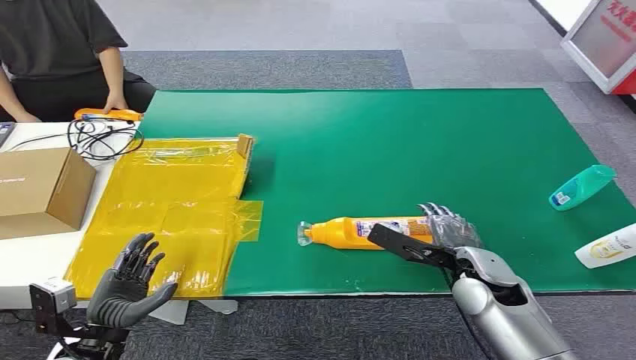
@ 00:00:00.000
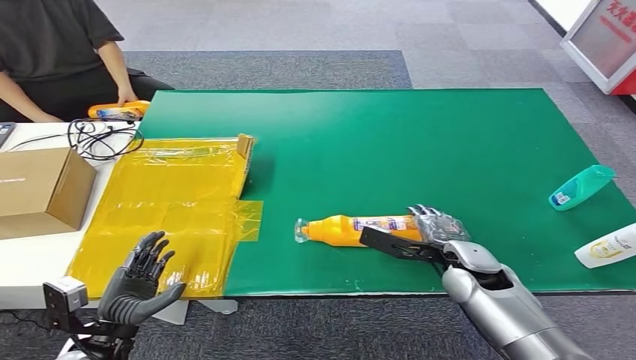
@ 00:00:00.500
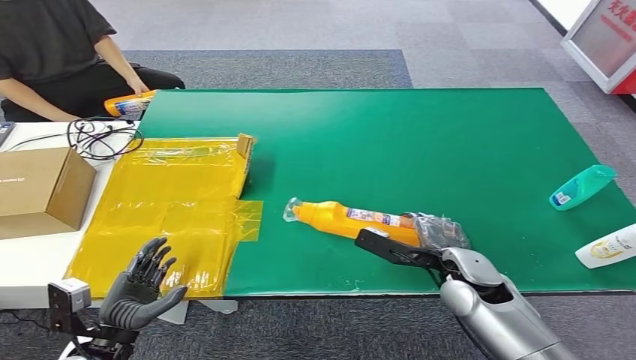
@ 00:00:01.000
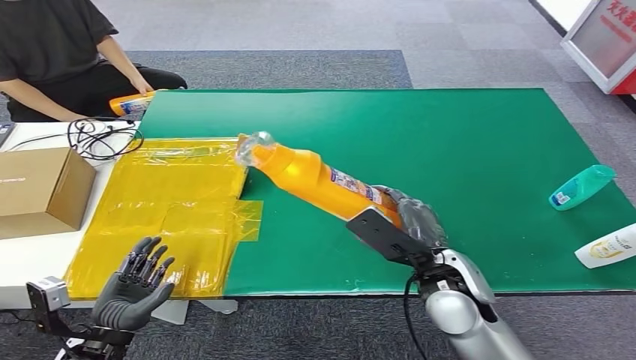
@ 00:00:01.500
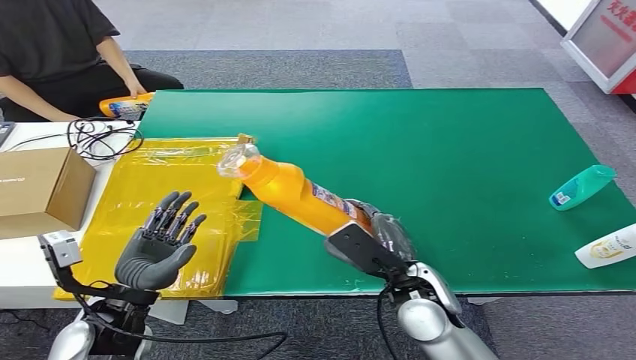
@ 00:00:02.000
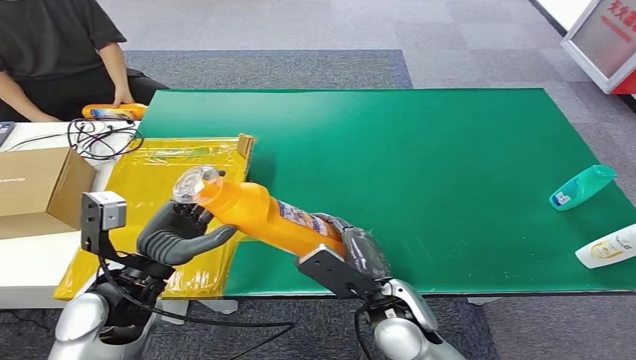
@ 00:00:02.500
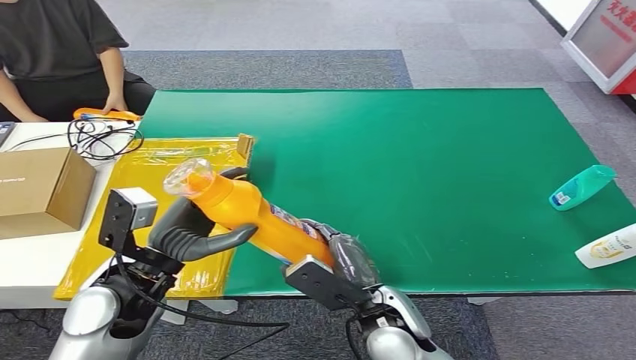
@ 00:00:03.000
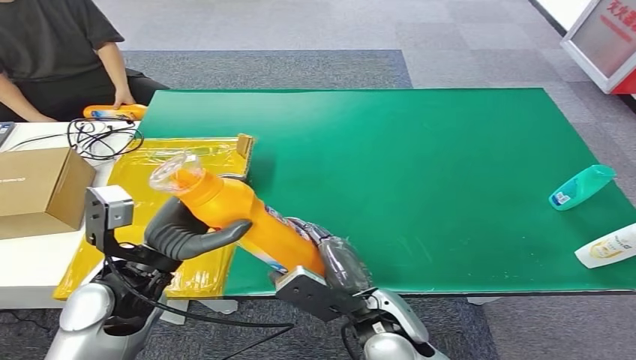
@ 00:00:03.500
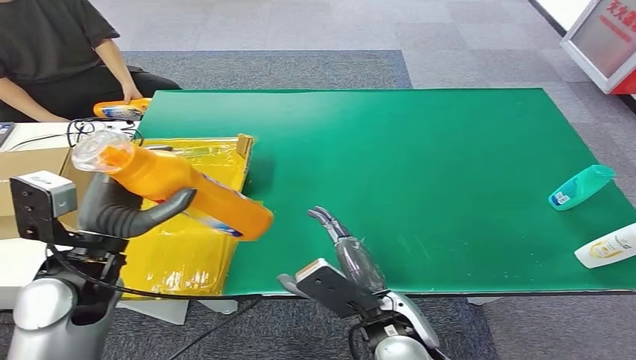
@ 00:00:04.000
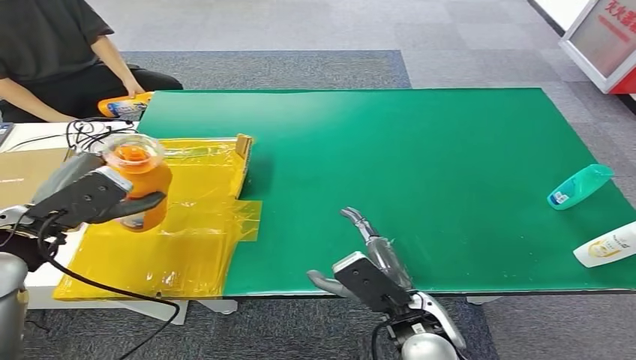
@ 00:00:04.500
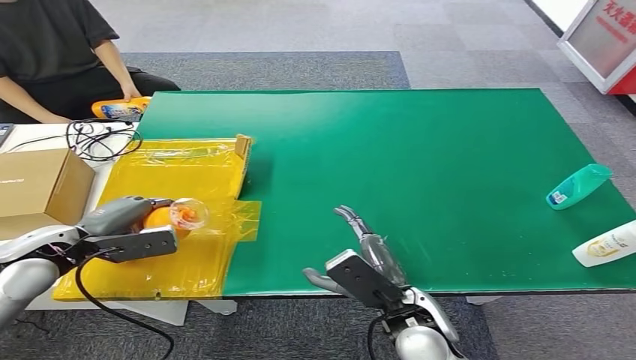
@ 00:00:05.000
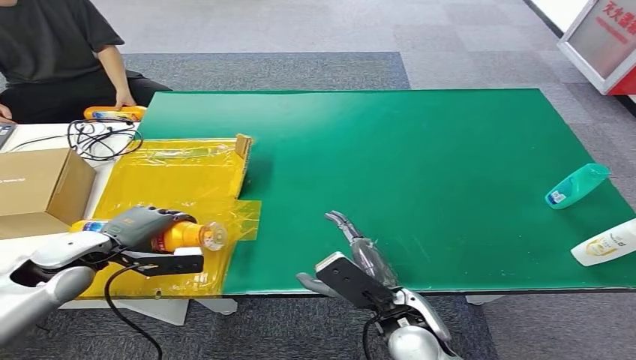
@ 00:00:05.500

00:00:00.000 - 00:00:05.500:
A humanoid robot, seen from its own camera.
Step, 00:00:00.000 - 00:00:01.500: Pick up the bottle from the table.
Step, 00:00:02.500 - 00:00:05.500: Turn the bottle to the front side.
